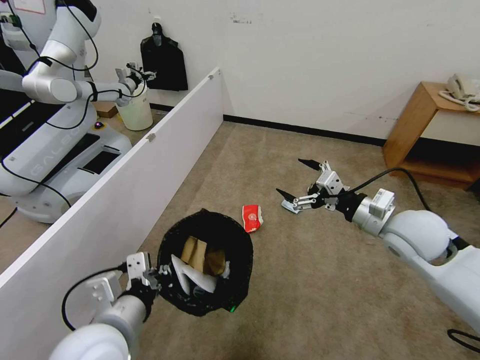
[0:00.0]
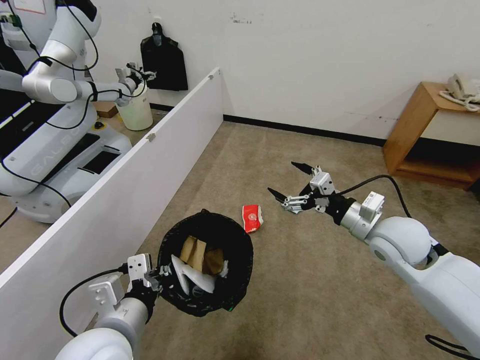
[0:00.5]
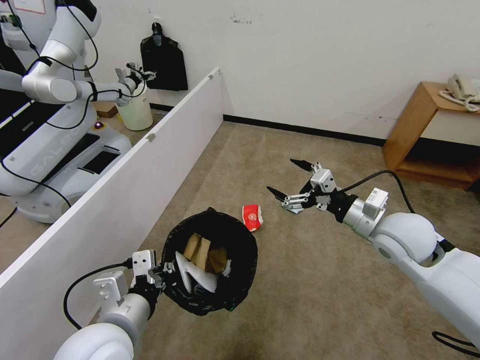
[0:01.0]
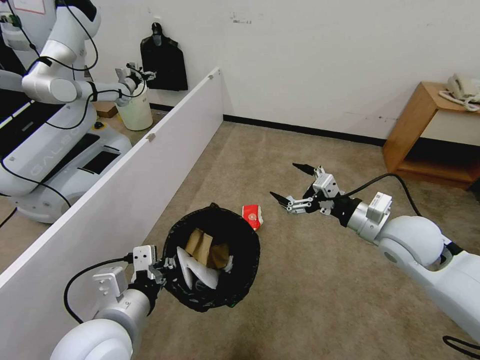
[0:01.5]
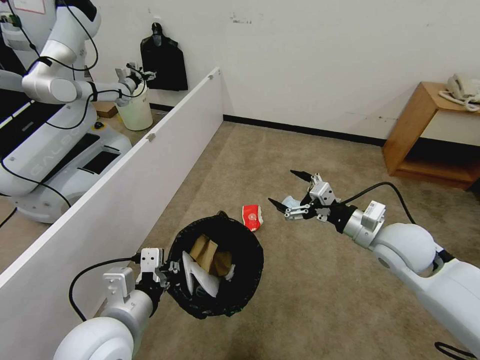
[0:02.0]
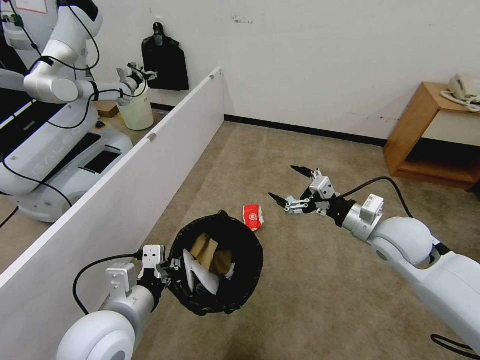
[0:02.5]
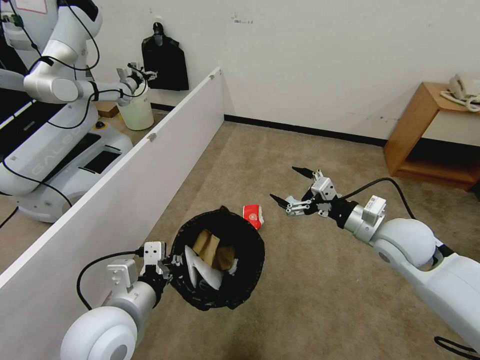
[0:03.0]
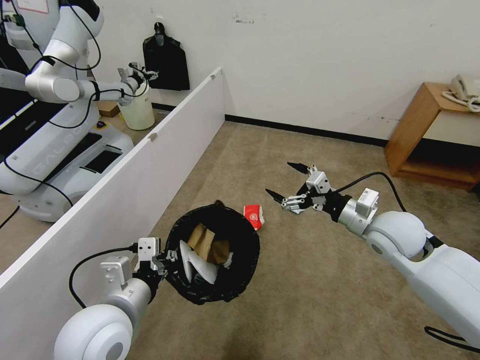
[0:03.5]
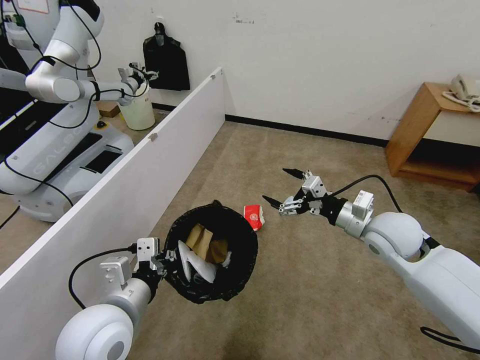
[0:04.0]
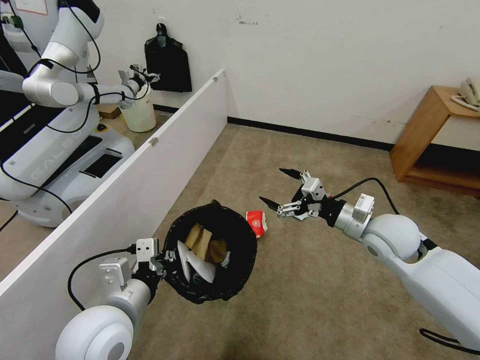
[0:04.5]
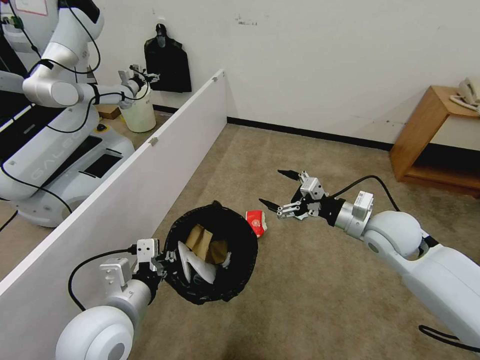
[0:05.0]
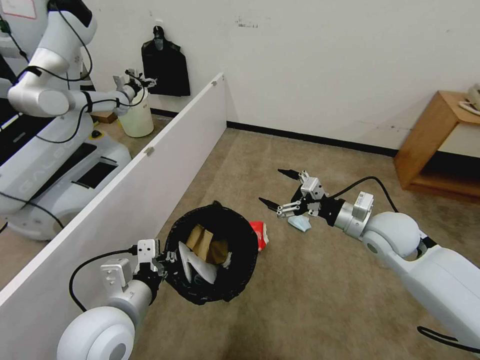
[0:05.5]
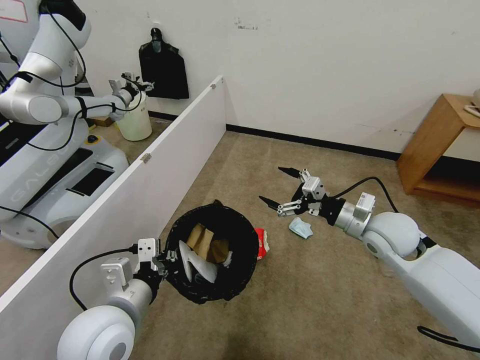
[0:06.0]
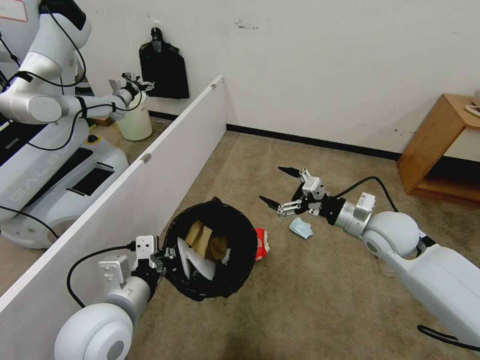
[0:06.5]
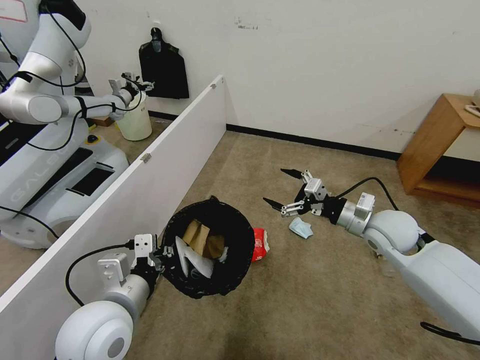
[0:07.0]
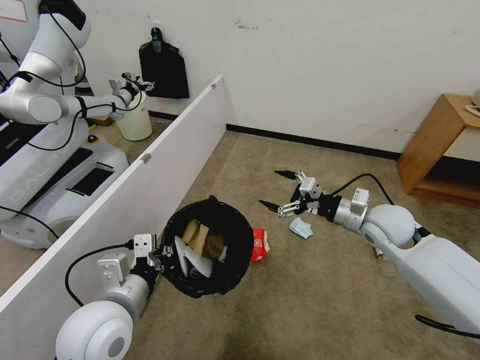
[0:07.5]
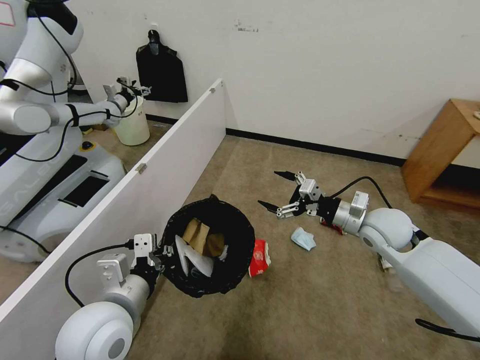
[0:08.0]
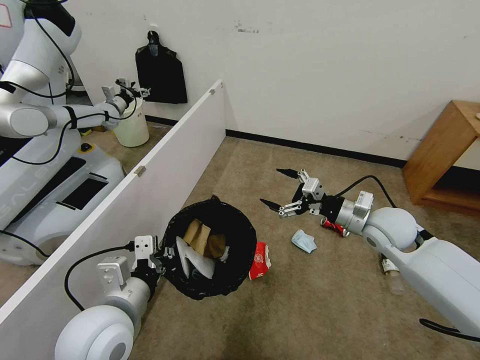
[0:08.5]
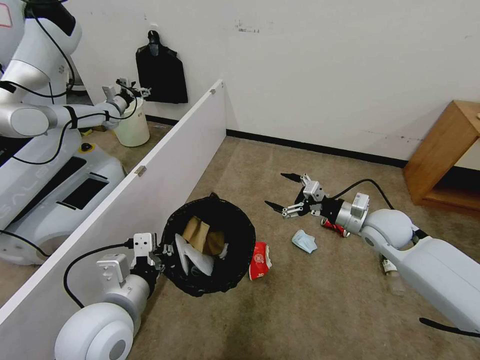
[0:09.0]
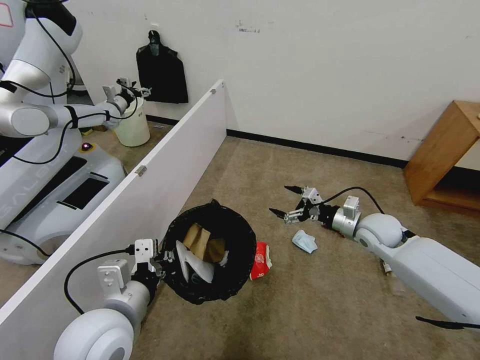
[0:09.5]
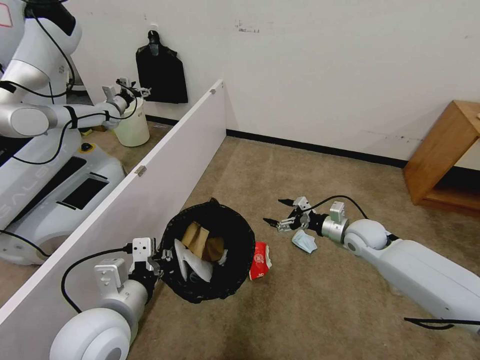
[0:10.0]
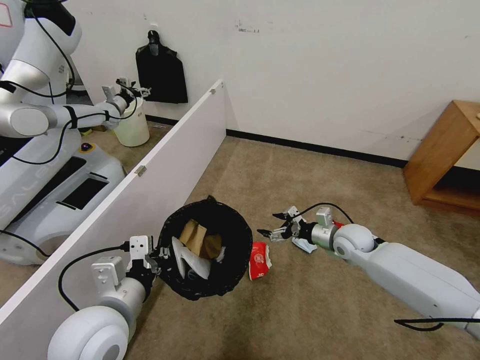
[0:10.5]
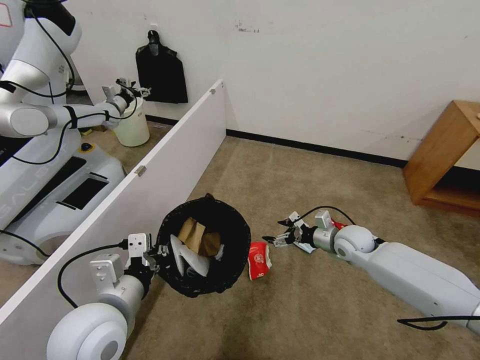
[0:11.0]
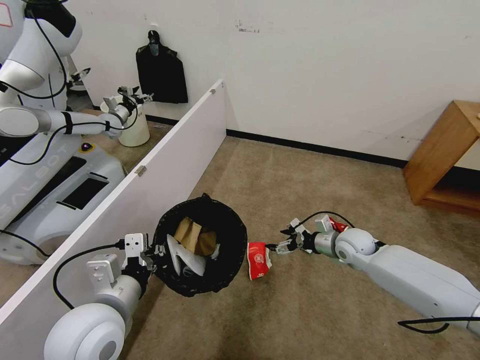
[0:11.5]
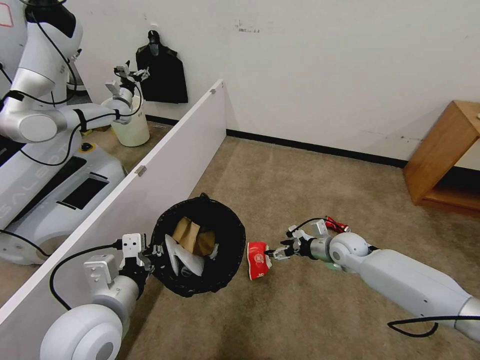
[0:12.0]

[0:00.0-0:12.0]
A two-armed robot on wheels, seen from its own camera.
Task of the whole recording: Pick up the trash bin and place the garbage on the floor into it.
0:00.0 to 0:04.0: The grippers make only small movements.
0:08.0 to 0:10.0: The right gripper shifts roughly 10 cm downward.
0:10.0 to 0:12.0: The right gripper changes place by roughly 5 cm.

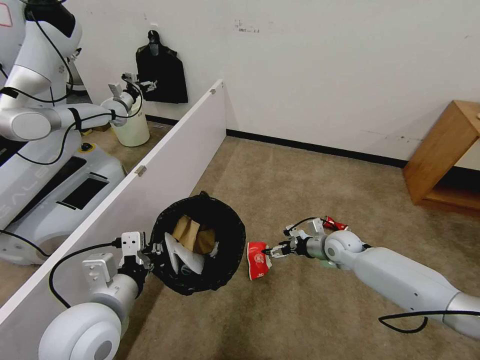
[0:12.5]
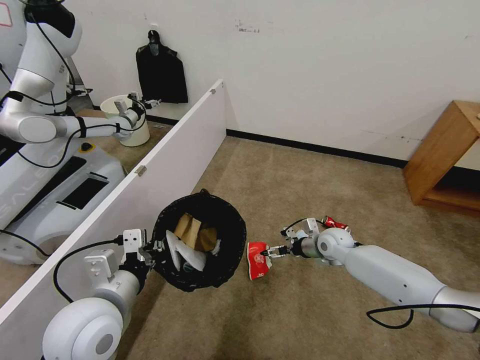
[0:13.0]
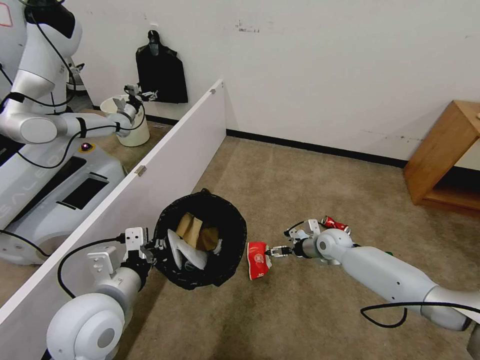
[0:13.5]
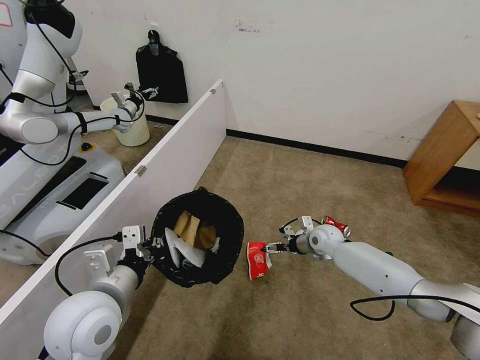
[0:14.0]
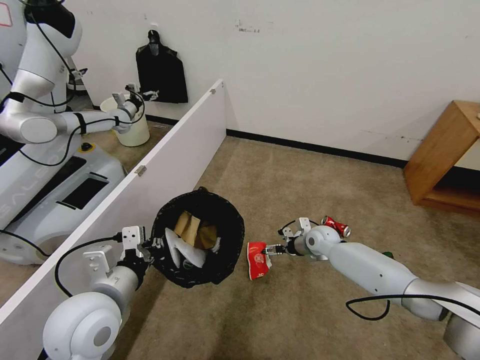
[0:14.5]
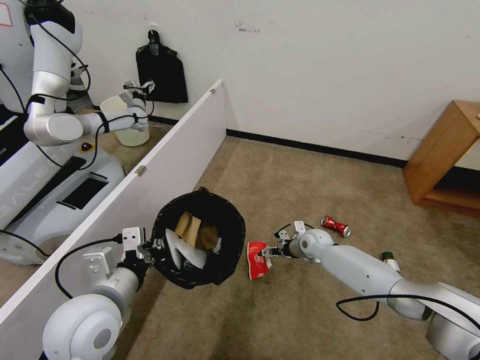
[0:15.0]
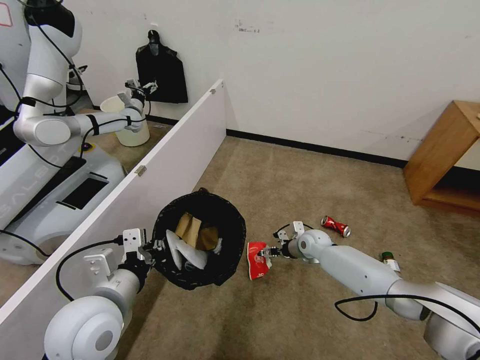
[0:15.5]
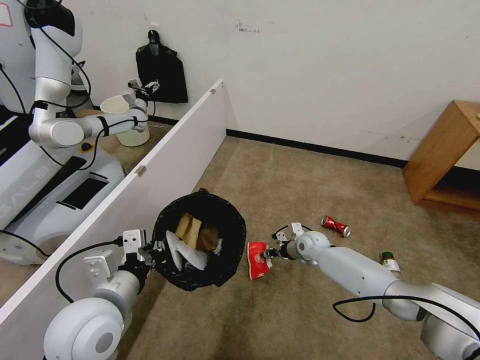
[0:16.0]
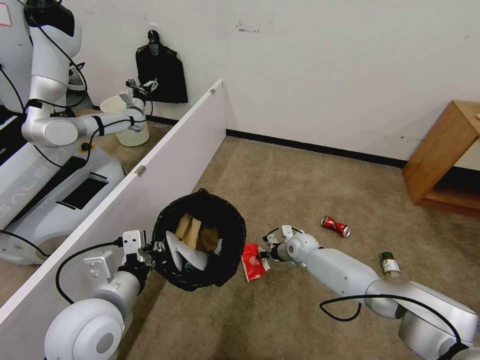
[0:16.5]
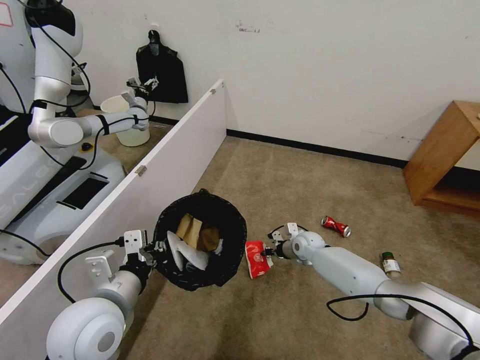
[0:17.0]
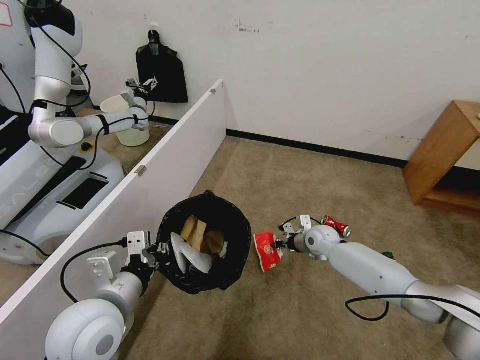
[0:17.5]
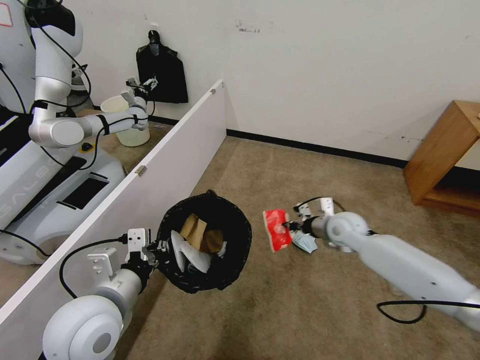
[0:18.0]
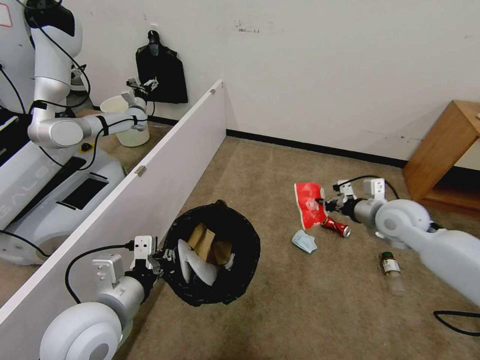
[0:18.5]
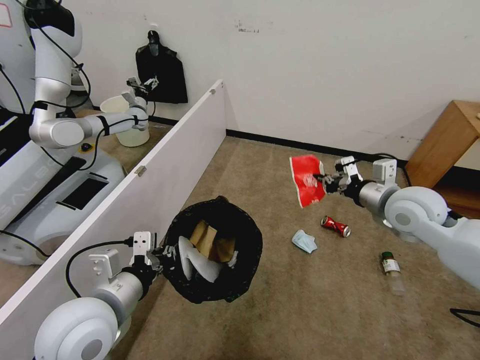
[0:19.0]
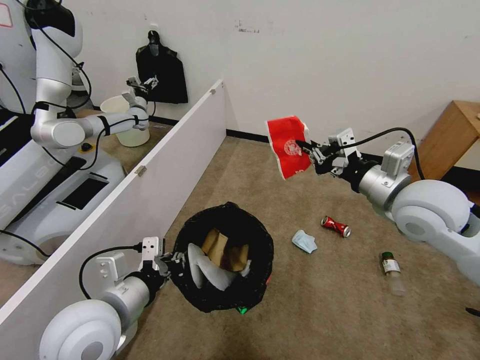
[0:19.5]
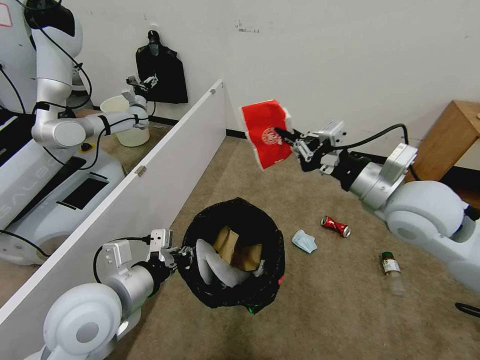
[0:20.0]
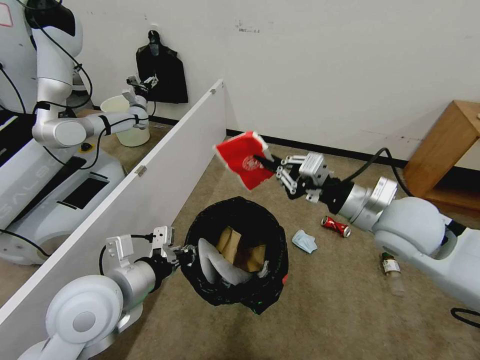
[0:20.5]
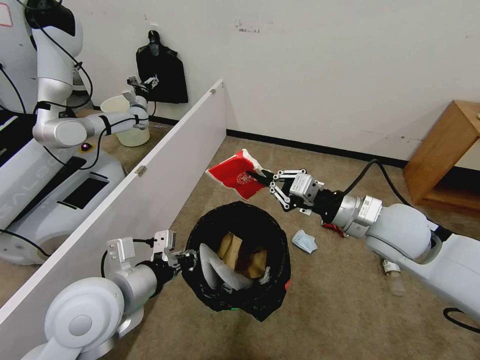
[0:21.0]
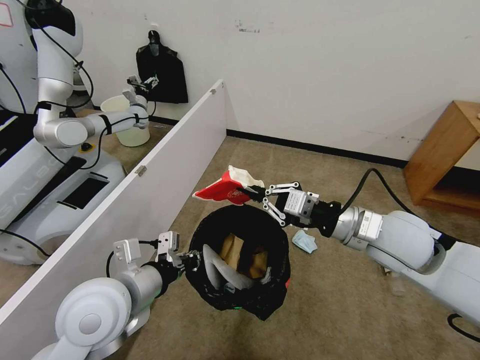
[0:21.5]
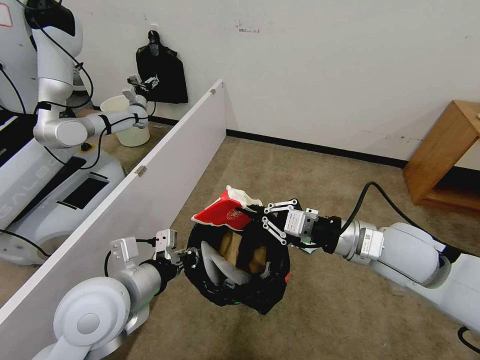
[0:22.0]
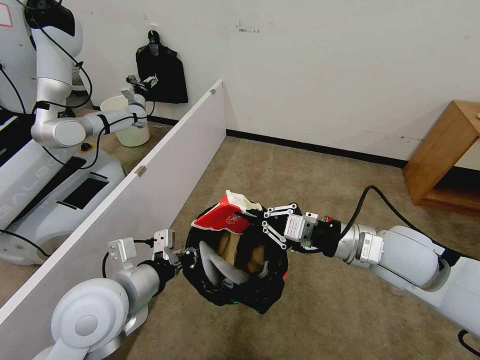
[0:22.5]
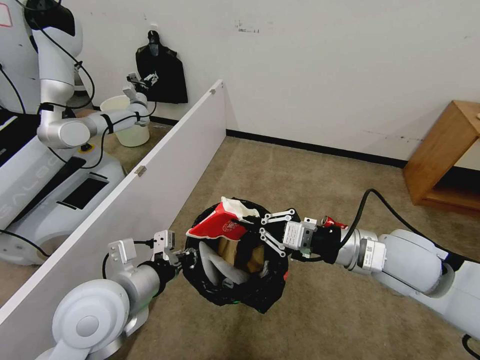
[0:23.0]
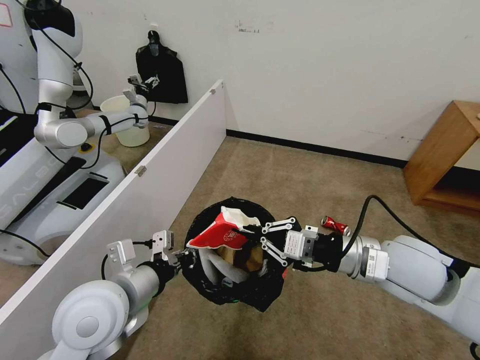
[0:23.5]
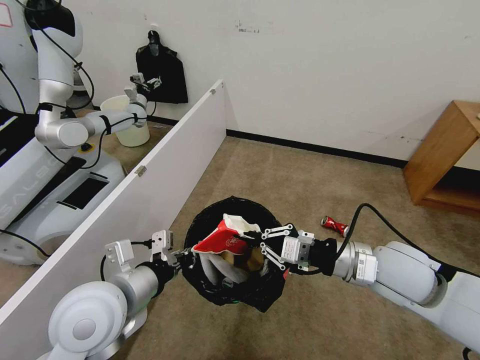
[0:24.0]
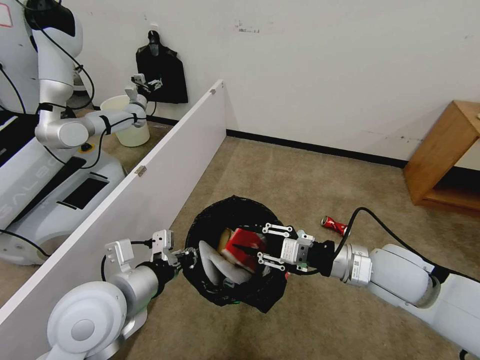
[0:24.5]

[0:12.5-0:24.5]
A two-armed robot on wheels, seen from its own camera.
Task of the whole recording: Pick up the trash bin and place the garbage on the floor into it.
0:12.5 to 0:14.5: The right gripper moves some 5 cm.
0:14.5 to 0:16.5: The right gripper travels downward by roughly 5 cm, and closes up.
0:16.5 to 0:18.5: The right gripper shifts some 30 cm upward and to the right.
0:18.5 to 0:20.5: The right gripper heads upward, backward and to the left, covering about 15 cm.
0:20.5 to 0:22.5: The right gripper shifts by about 5 cm.
0:22.5 to 0:24.5: The right gripper opens.

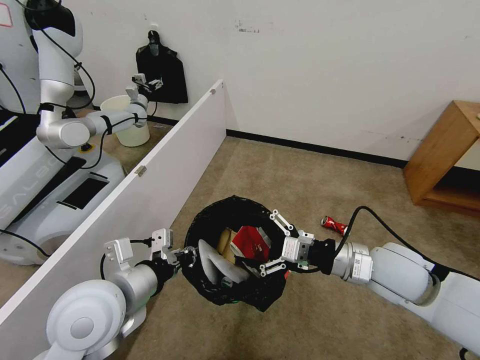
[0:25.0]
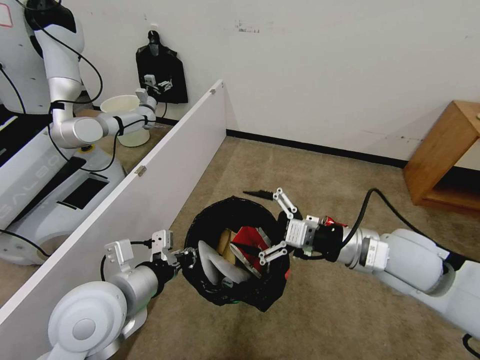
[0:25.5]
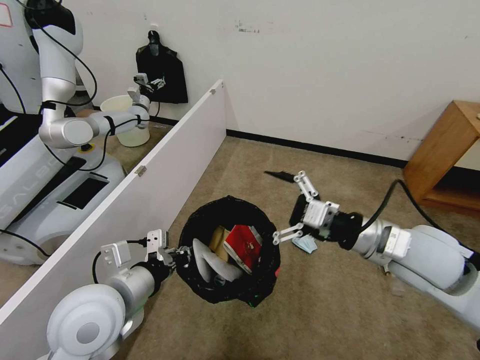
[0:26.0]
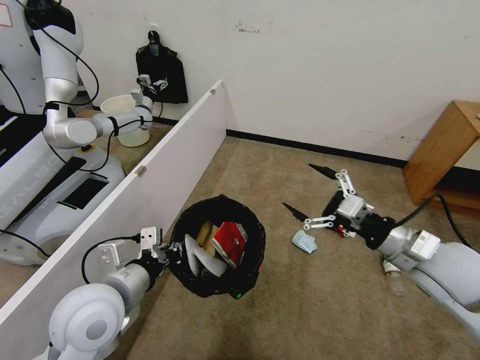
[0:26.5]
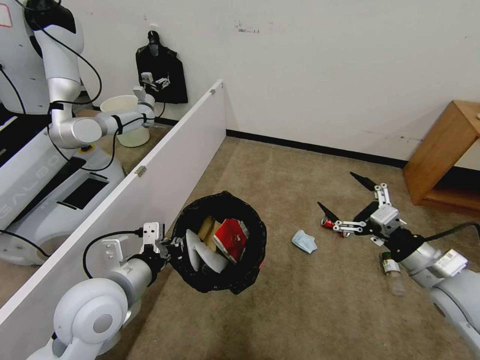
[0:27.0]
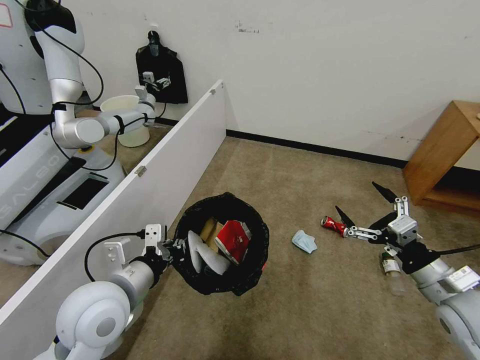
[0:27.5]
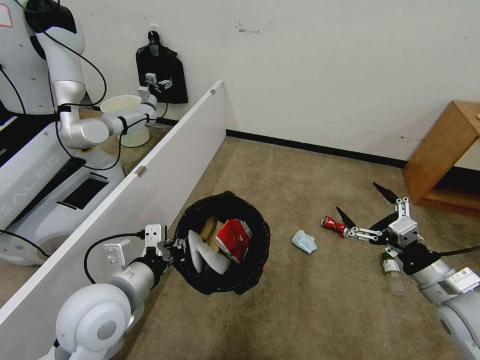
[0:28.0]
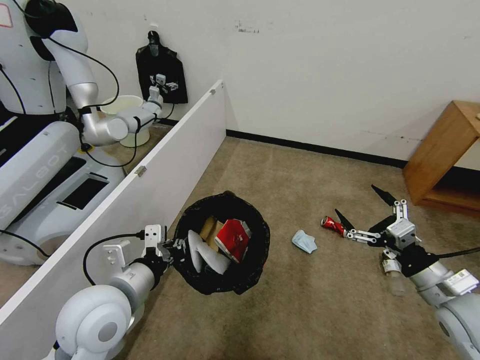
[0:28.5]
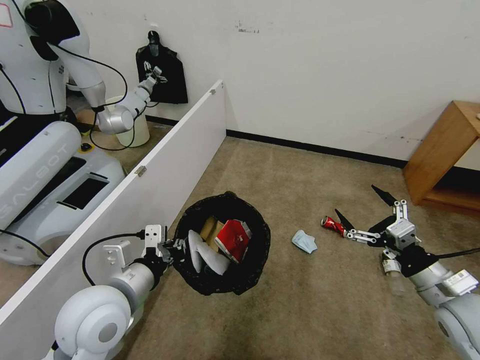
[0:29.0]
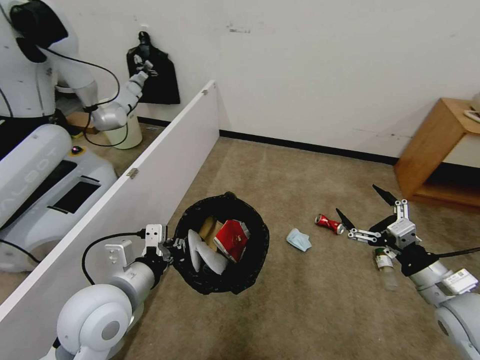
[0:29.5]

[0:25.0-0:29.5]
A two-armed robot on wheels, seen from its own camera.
Task of the whole recording: Pick up the trash bin and place the garbage on the floor into it.
0:25.0 to 0:27.0: The right gripper goes approximately 10 cm to the right.
